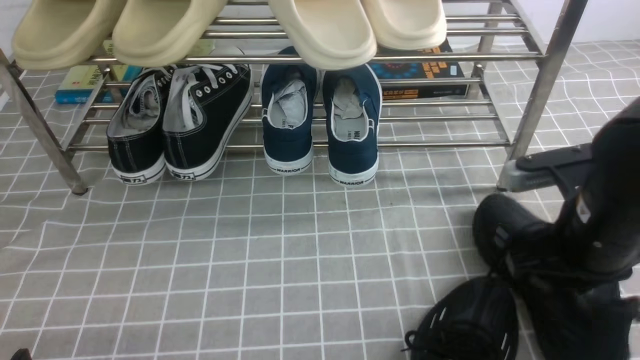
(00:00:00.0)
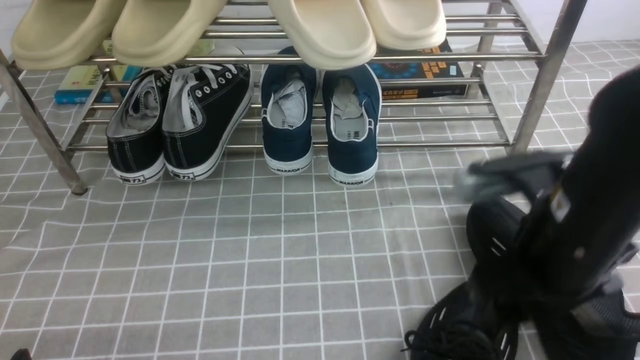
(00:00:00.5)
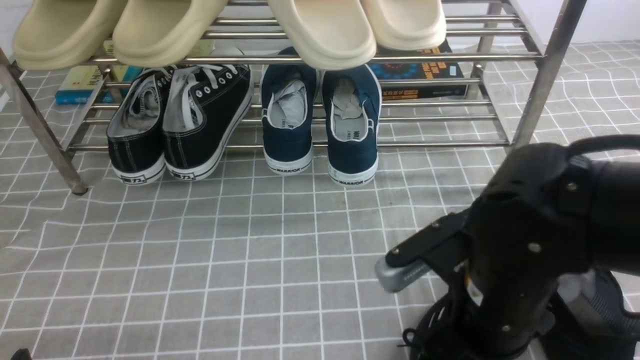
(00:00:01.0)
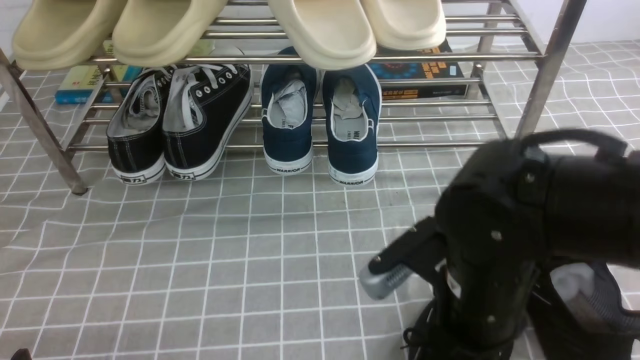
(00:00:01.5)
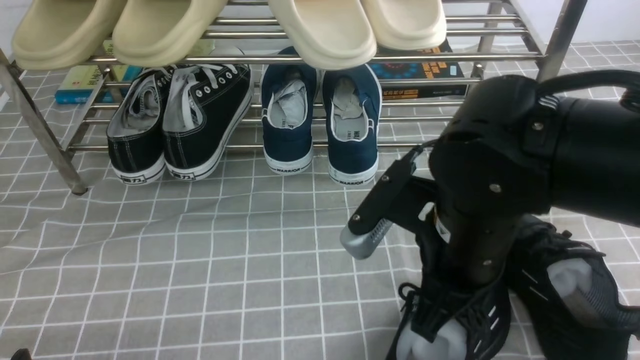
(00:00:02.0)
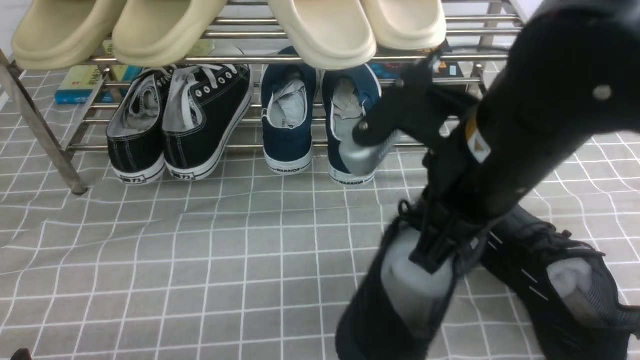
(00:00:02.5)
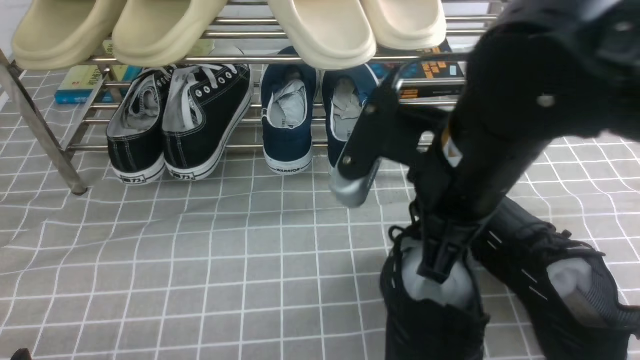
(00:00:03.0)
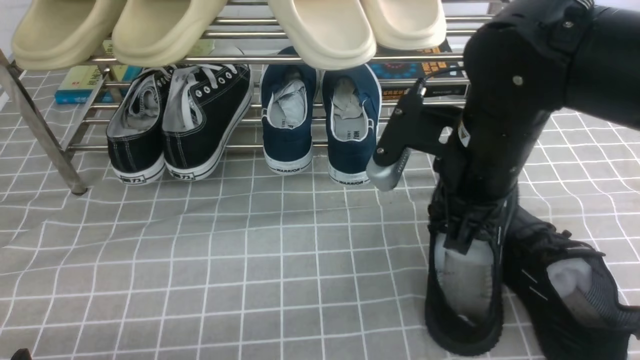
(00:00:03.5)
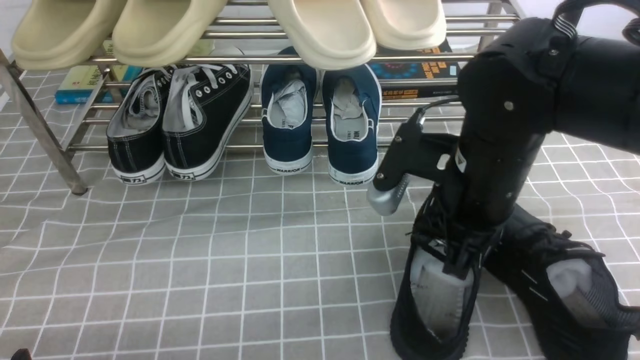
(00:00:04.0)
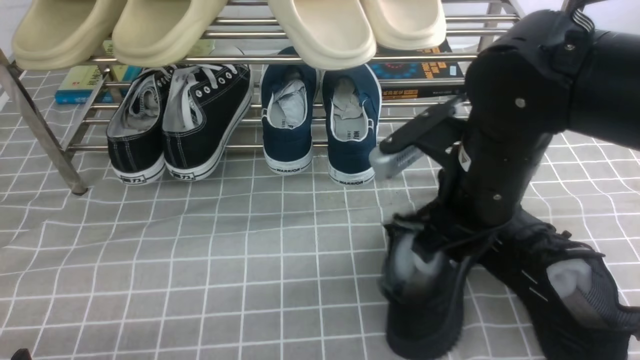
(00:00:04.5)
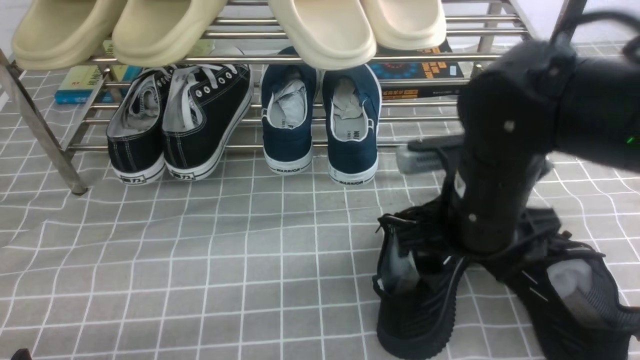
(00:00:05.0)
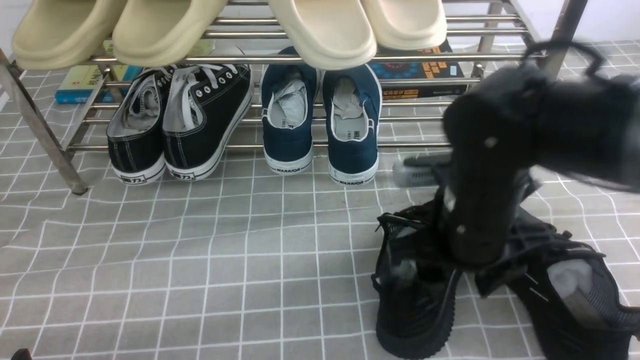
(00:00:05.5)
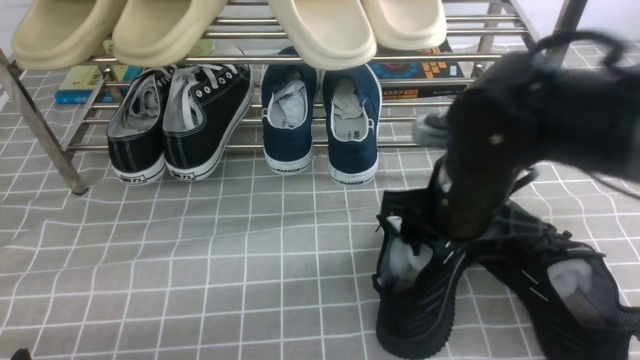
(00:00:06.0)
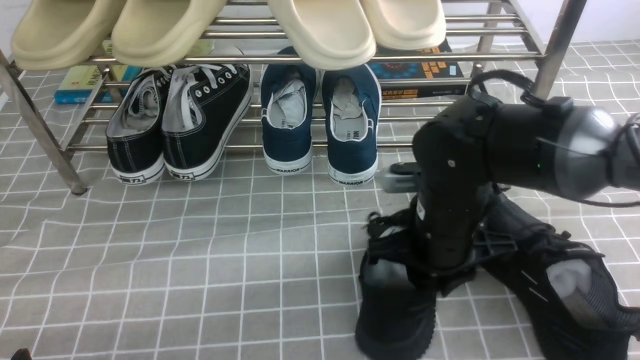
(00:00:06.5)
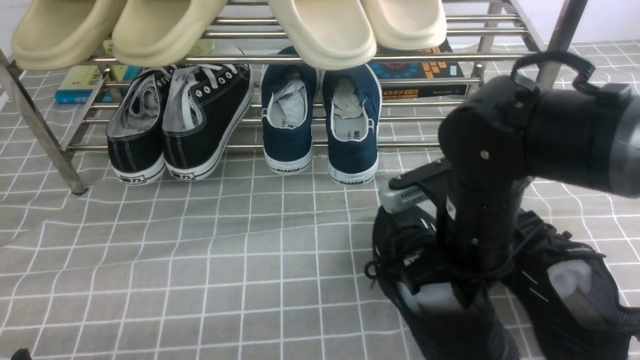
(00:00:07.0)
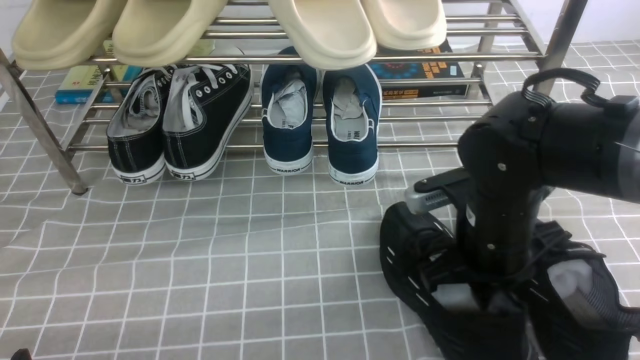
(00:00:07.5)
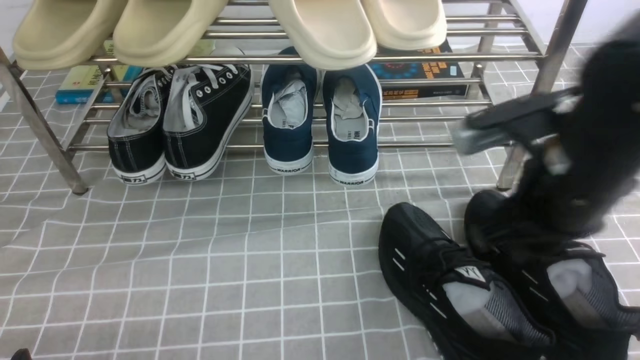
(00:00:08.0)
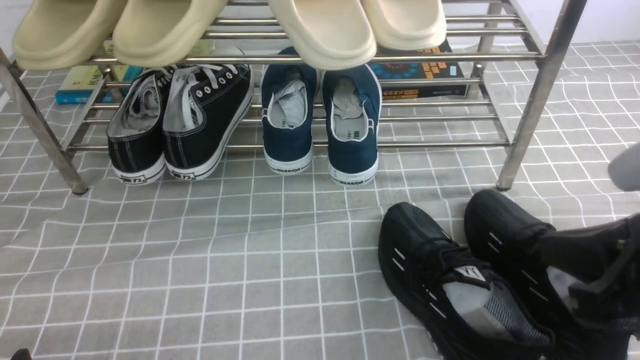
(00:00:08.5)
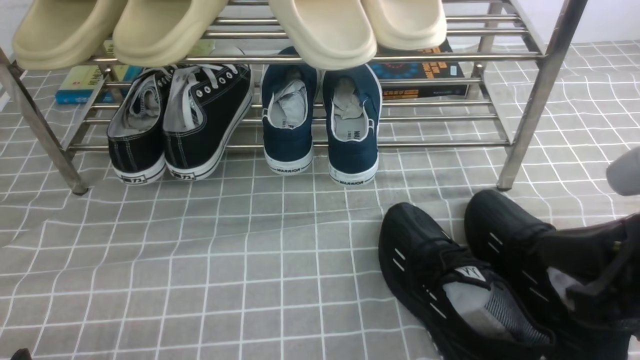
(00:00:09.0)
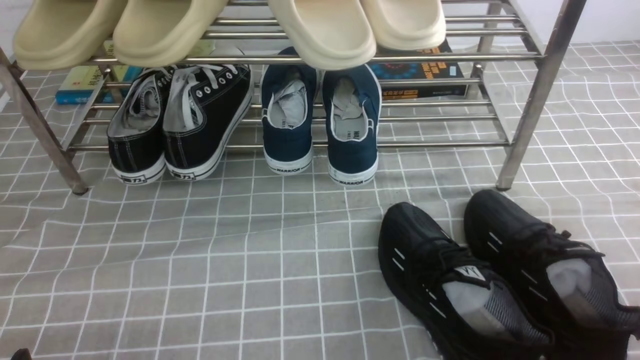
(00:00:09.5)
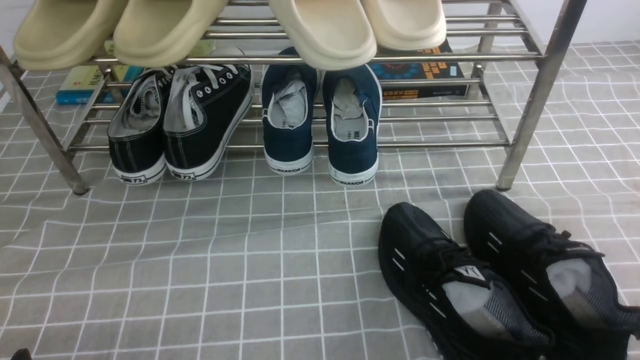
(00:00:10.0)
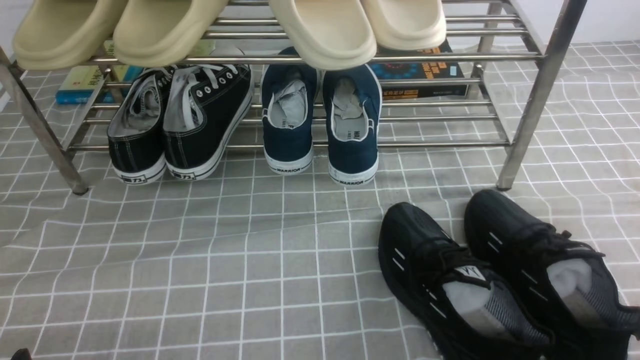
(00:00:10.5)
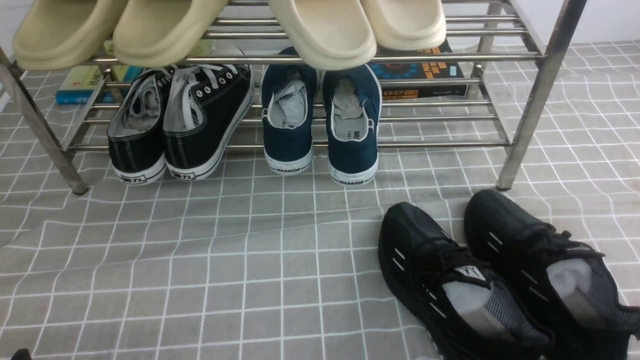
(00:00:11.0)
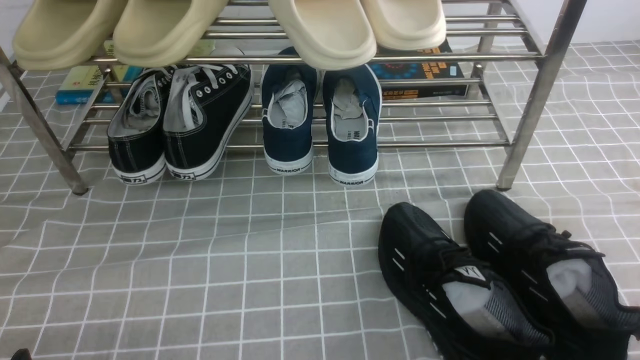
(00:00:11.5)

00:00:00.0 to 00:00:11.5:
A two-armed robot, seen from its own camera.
00:00:00.0 to 00:00:02.0: The right gripper goes some 10 cm to the left, and opens, then closes again.
00:00:02.0 to 00:00:04.0: The right gripper is displaced forward by about 5 cm.
00:00:04.0 to 00:00:06.0: The right gripper opens.
00:00:06.0 to 00:00:07.5: The right gripper ends up about 5 cm from where it was, and closes up.
00:00:07.5 to 00:00:09.5: The right gripper is displaced backward and to the right by roughly 25 cm.
